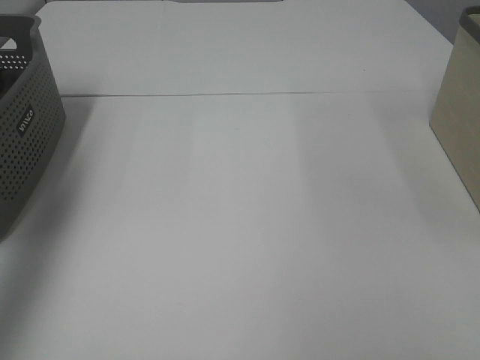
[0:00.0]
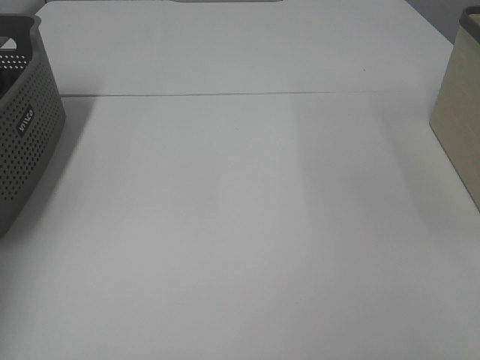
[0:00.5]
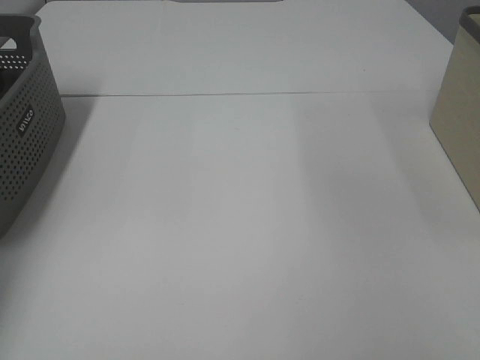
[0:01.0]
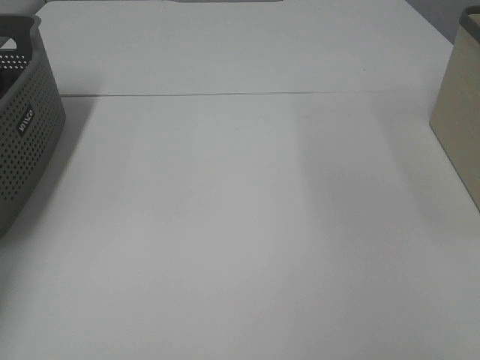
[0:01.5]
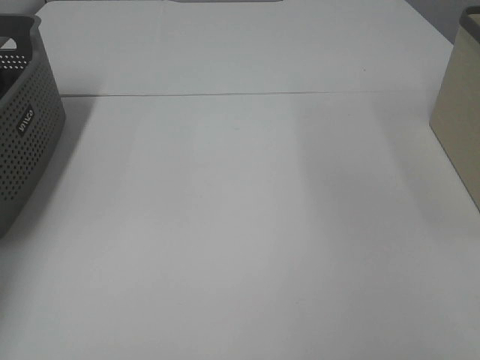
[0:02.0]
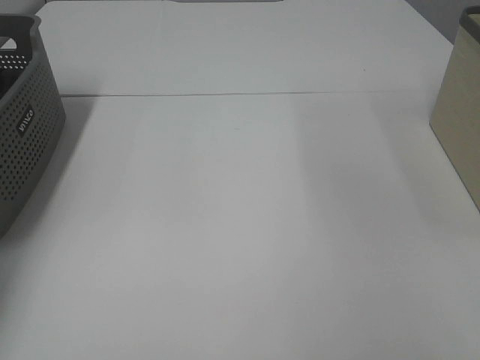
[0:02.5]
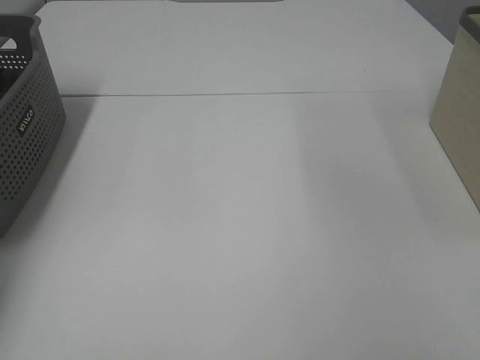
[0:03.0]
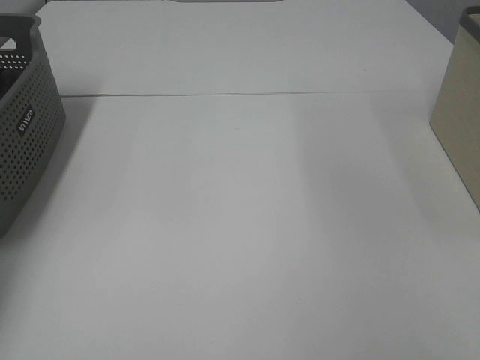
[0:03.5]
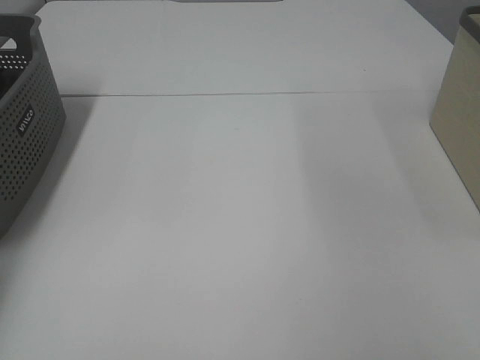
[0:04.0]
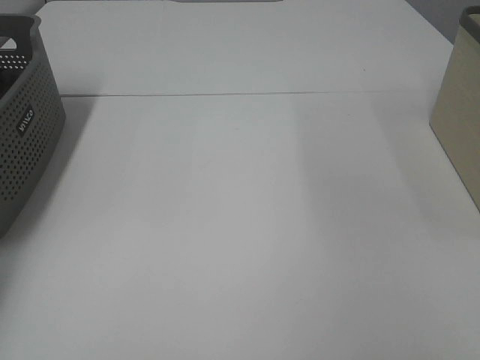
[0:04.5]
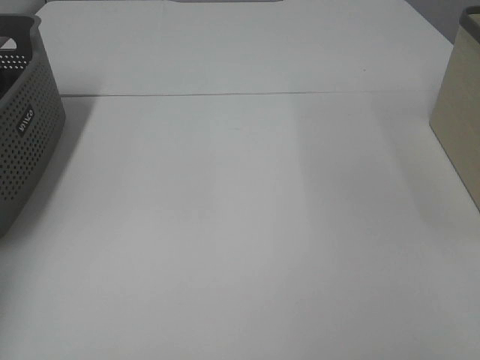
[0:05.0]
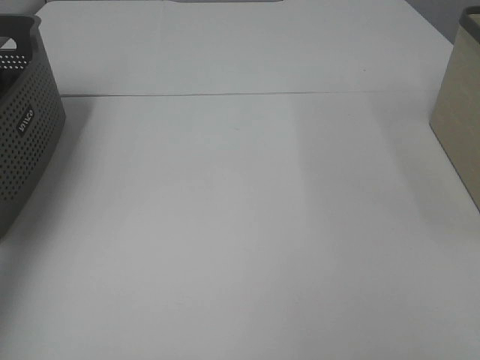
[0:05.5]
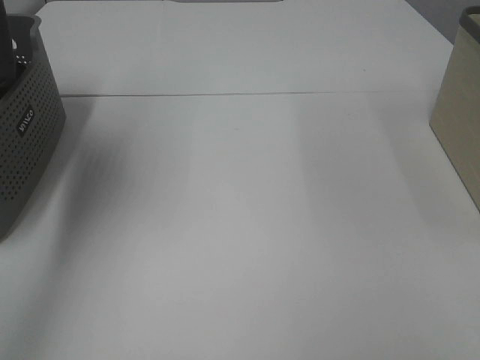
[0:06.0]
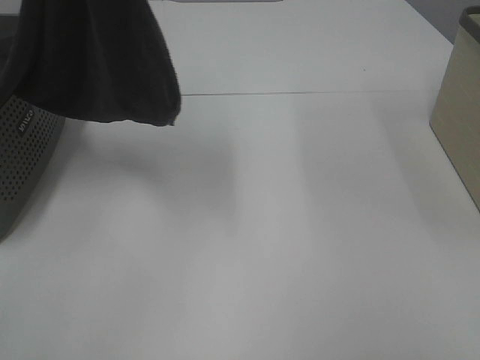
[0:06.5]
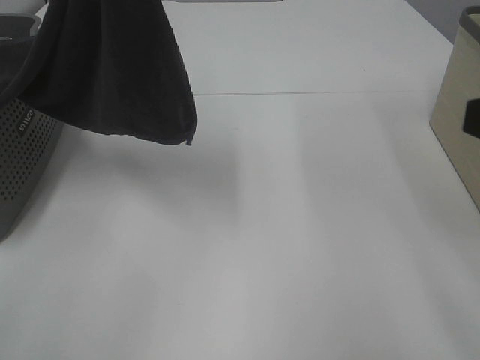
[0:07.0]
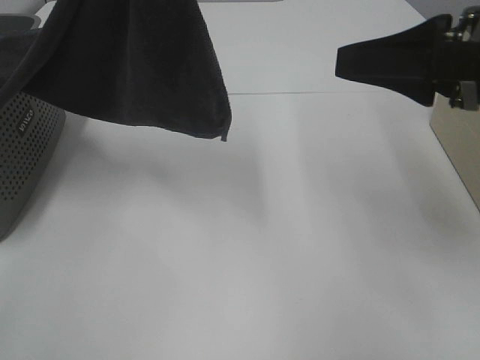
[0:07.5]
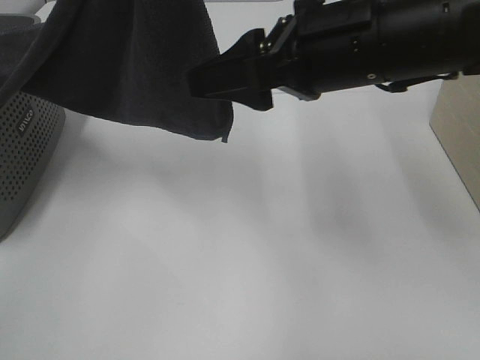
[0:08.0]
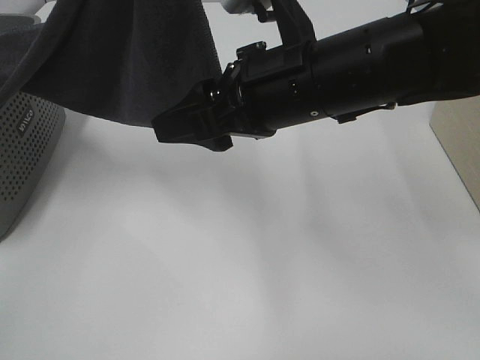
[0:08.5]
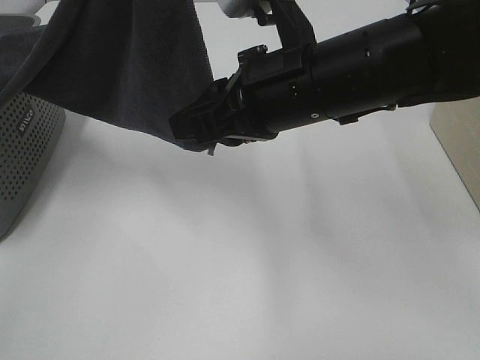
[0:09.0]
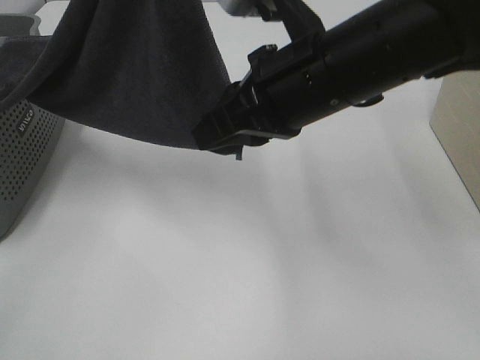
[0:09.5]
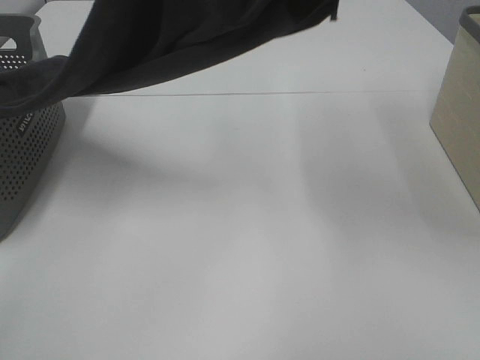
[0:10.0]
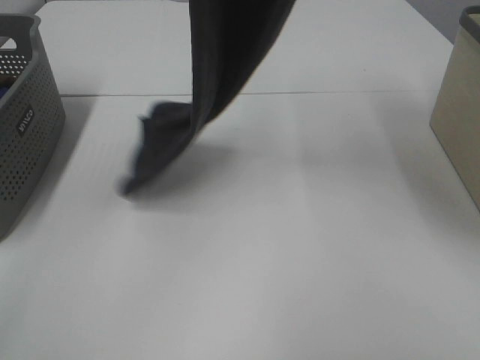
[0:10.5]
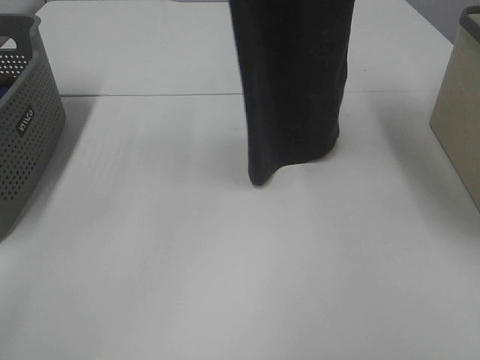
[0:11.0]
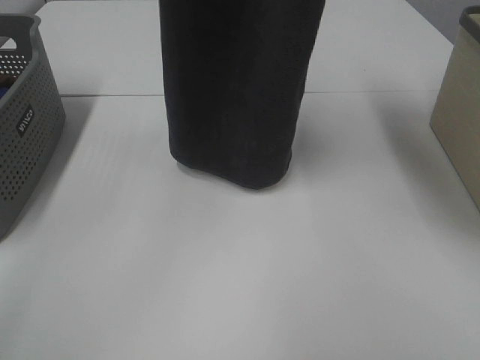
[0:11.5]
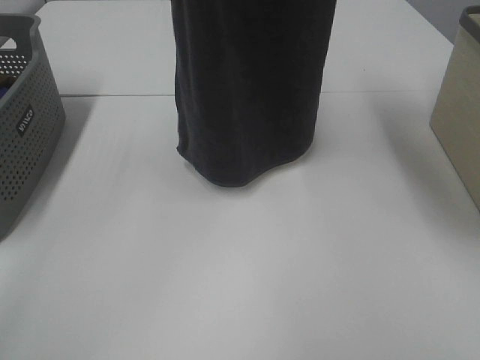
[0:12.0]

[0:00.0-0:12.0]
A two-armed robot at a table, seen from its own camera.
Task of the whole recording: Remove the towel and place it.
Step, 0:05.5 to 0:09.5: Right hand: grab a corner of the grey towel and straighten it.
0:00.0 to 0:02.0: The left gripper goes roughly 25 cm downward and forward.
0:04.0 to 0:06.0: The left gripper heads upward, to the right and backward, covering some 40 cm, and closes.
0:06.0 to 0:08.0: The right gripper heads forward and to the left, covering roughly 30 cm. The left gripper is displaced to the right by some 15 cm.
0:08.0 to 0:10.0: The right gripper travels upward by some 10 cm, and closes its fingers.
0:10.0 to 0:12.0: The right gripper goes some 15 cm upward, while the left gripper ends up roughly 5 cm from where it was.

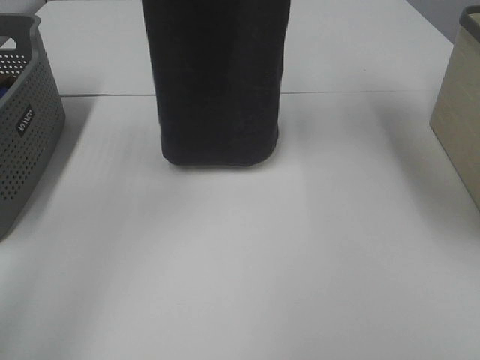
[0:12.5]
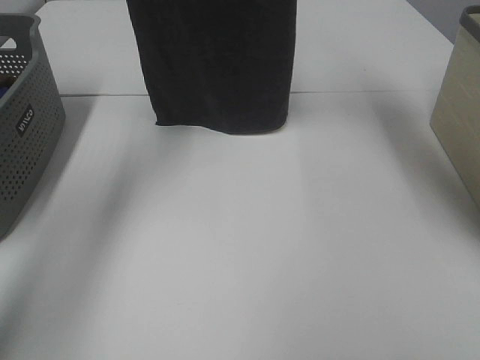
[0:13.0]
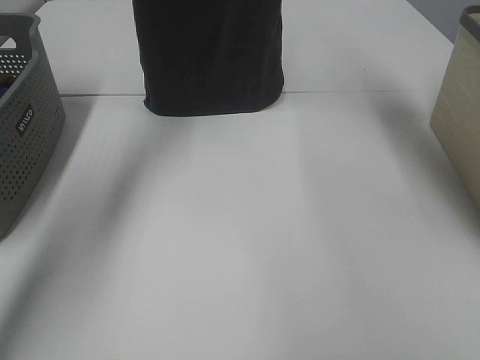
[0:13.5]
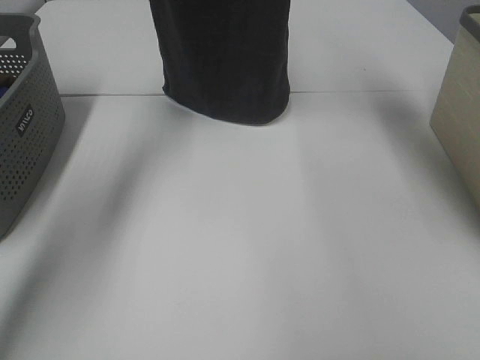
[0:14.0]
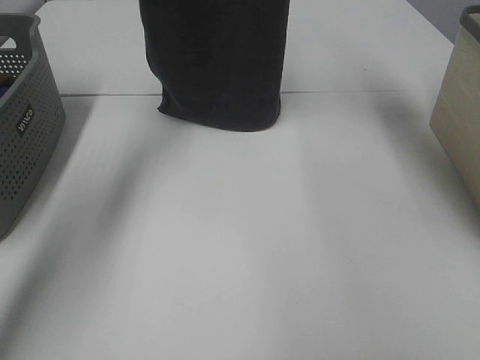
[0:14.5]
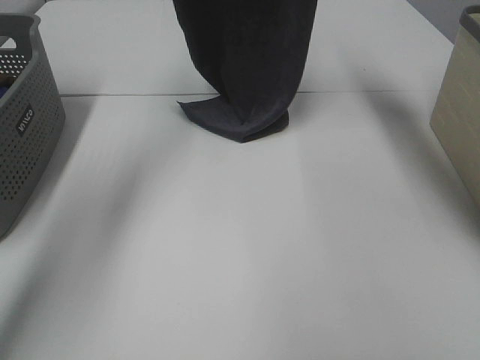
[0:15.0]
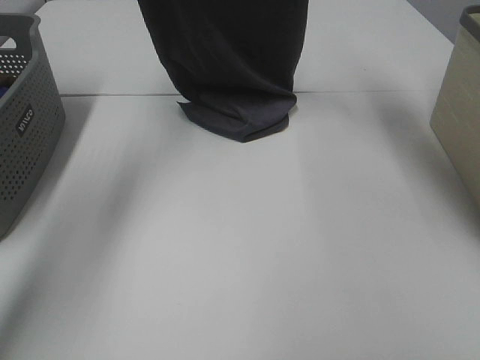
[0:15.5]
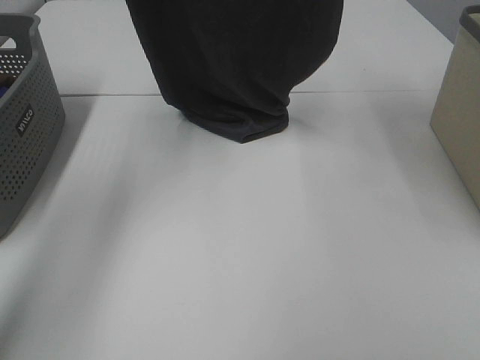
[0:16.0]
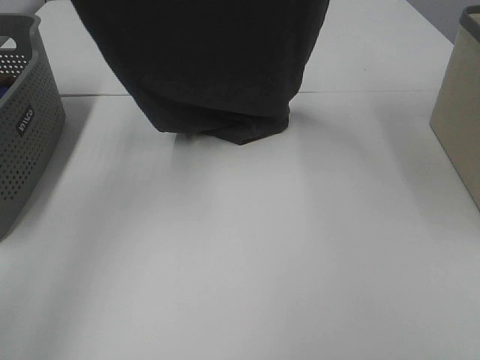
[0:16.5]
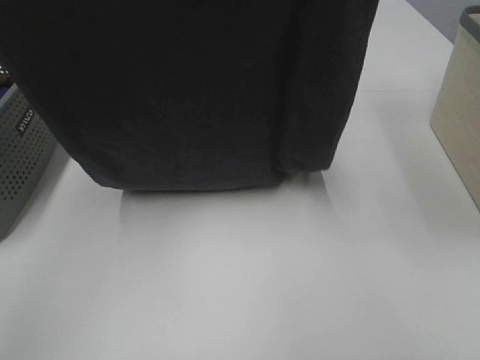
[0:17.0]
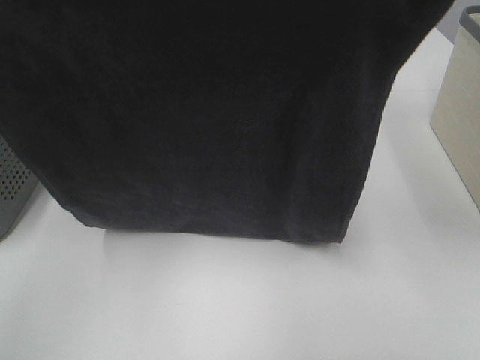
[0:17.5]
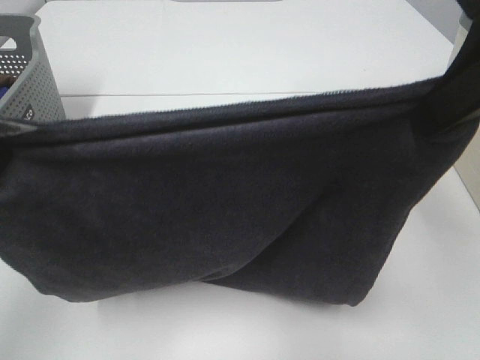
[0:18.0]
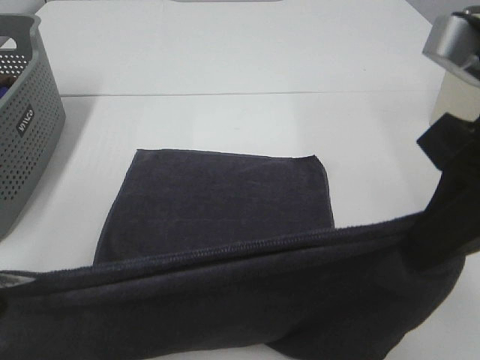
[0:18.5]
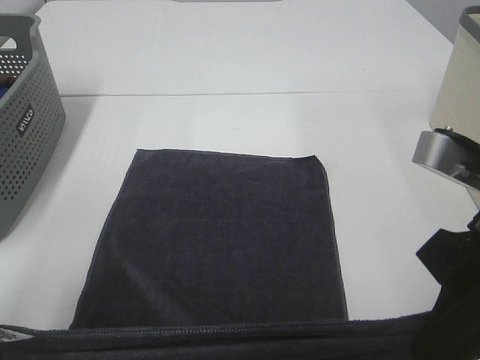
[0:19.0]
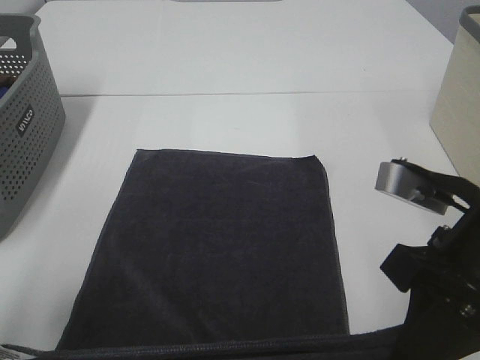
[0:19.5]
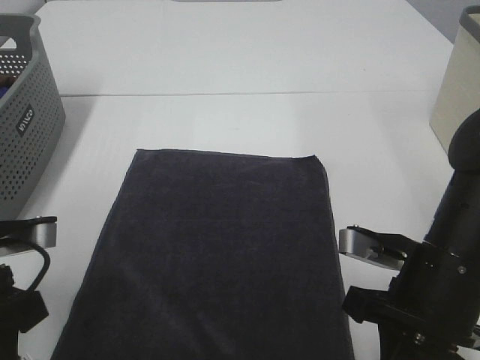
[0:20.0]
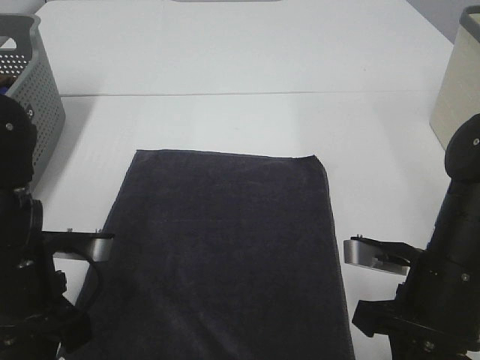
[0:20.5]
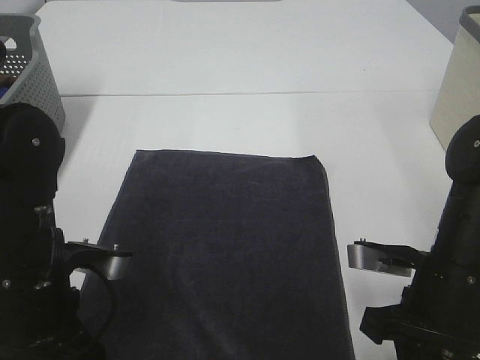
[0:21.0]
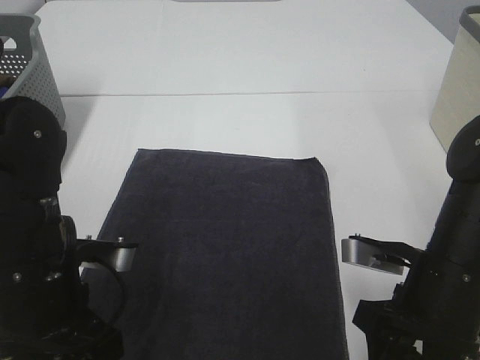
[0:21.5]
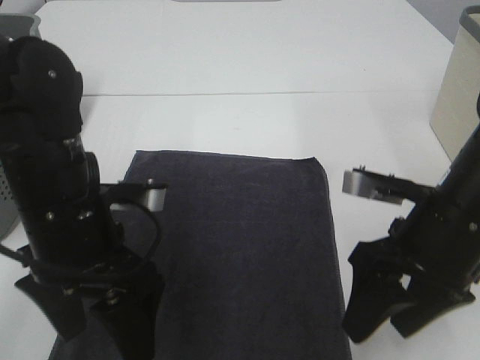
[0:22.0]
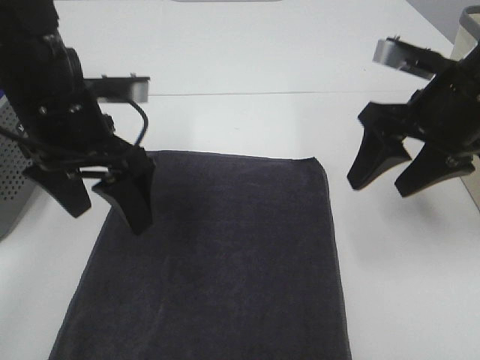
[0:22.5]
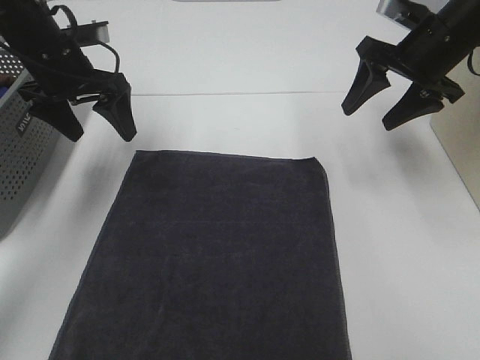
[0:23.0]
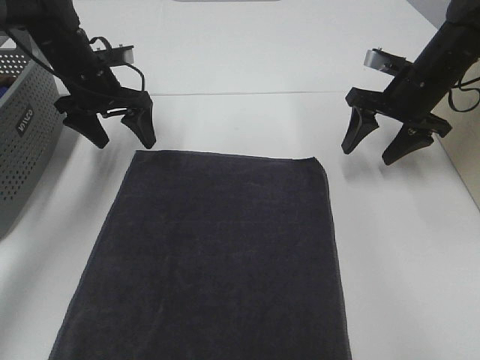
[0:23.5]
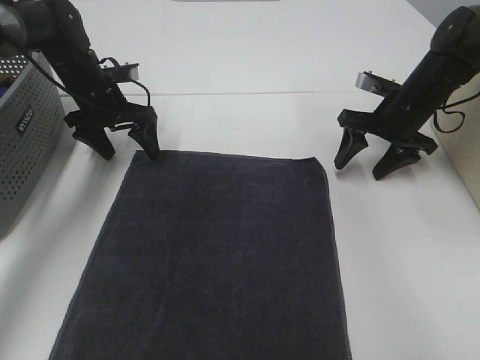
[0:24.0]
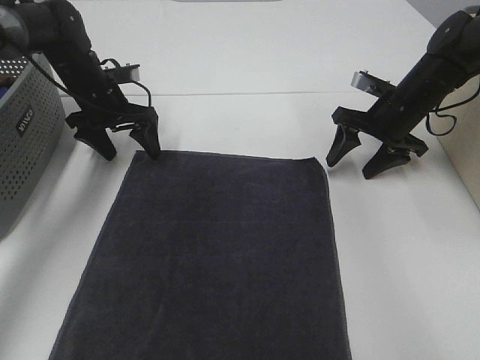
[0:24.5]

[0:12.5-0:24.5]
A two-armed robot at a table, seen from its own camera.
Task of the whole recording: Remove the towel and place it.
Step, 0:12.5 to 0:16.5: Left hand: spread the grey towel flat on the table.
Step, 0:12.5 to 0:16.5: Right hand: spread the grey towel flat on the table.
0:12.5 to 0:14.5: The left gripper moves forward and downward, some 15 cm. Meanwhile the right gripper heads forward, covering approximately 10 cm.
0:14.5 to 0:16.5: Both grippers move backward, some 15 cm.
0:16.5 to 0:18.5: The grippers both shift downward and backward by about 25 cm.
0:18.5 to 0:20.5: Both grippers move downward, about 15 cm.
0:20.5 to 0:22.5: The right gripper is displaced upward and forward by roughly 15 cm, and opens. The left gripper moves forward and upward, some 15 cm, and opens.
0:22.5 to 0:24.5: Both grippers travel together forward and downward, about 20 cm.

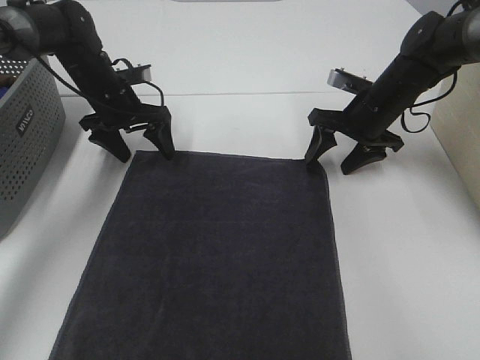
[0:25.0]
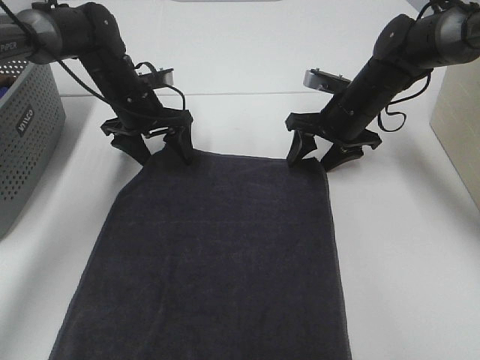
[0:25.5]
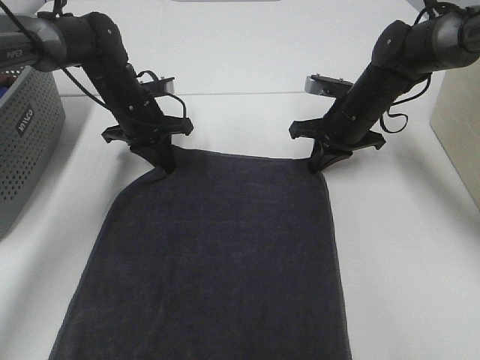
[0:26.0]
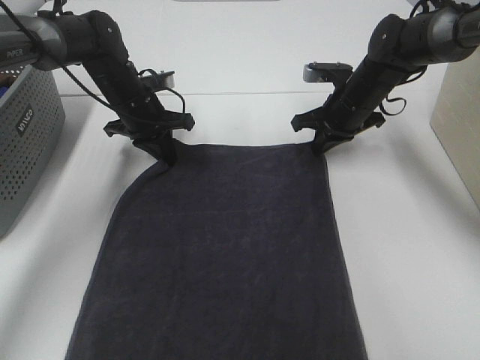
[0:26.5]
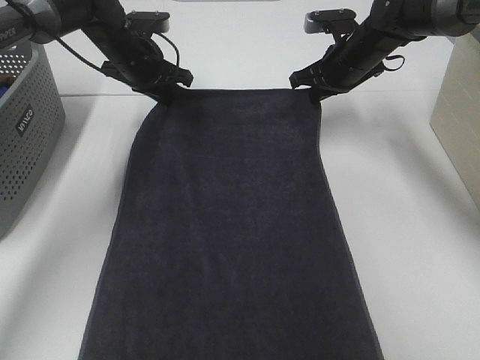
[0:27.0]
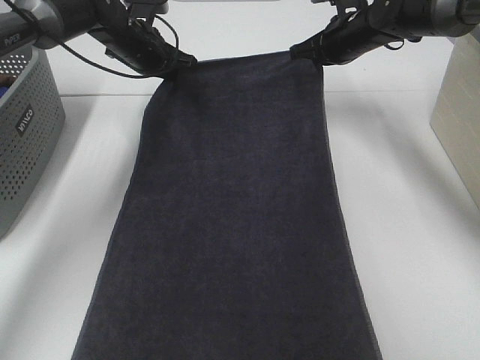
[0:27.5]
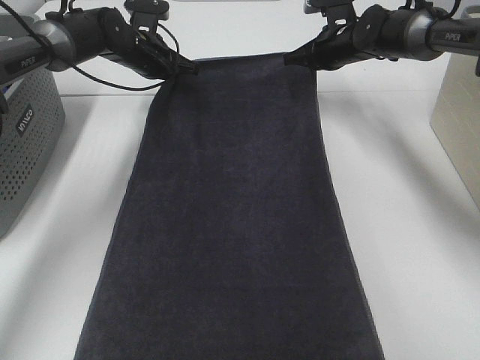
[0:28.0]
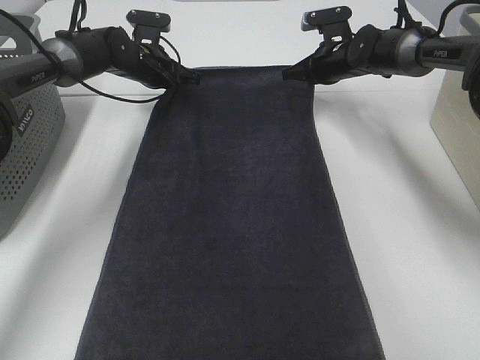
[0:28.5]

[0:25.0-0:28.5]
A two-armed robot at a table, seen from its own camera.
Task of the whole recording: Remove the towel and place it.
Step, 0:25.0 to 0:27.5: Left hand:adjust the gray towel.
0:25.0 to 0:27.0: The left gripper moves approximately 5 cm, and closes its fingers. The right gripper shifts approximately 10 cm forward and upward, and closes up.
0:27.0 to 0:28.5: The right gripper shifts approximately 5 cm forward. Meanwhile the left gripper ends up about 5 cm from where it was.
